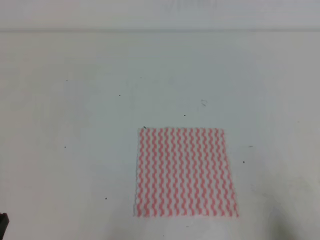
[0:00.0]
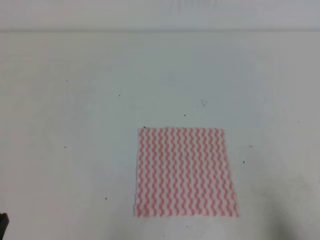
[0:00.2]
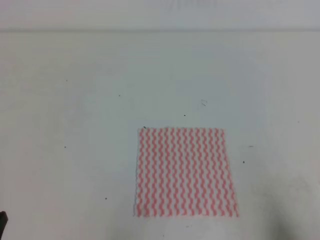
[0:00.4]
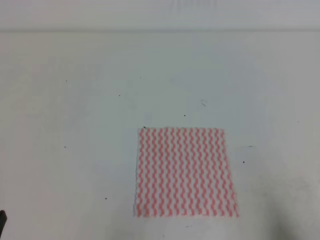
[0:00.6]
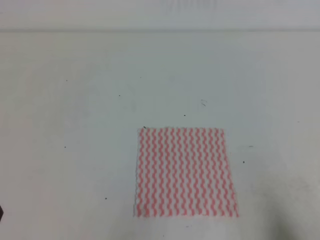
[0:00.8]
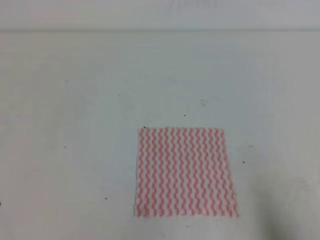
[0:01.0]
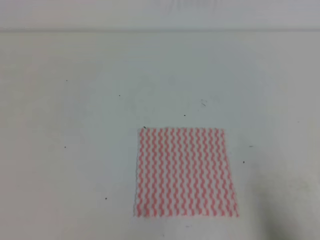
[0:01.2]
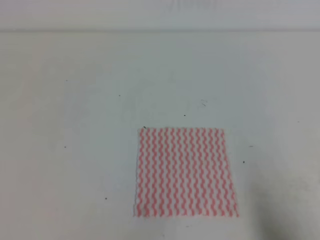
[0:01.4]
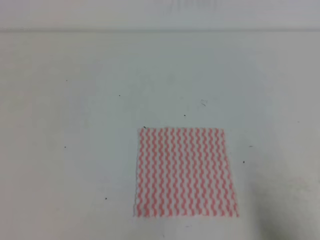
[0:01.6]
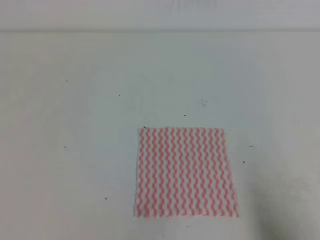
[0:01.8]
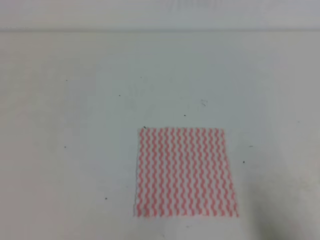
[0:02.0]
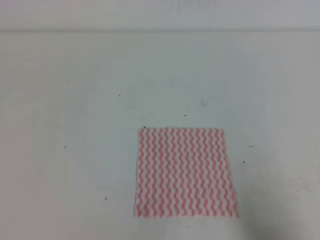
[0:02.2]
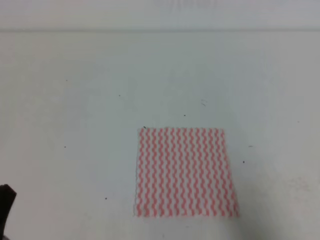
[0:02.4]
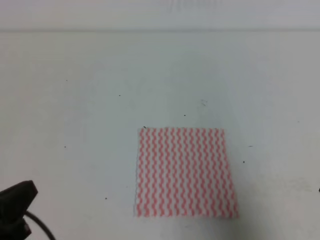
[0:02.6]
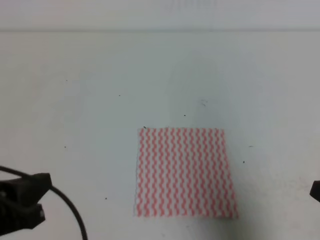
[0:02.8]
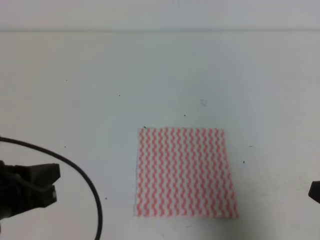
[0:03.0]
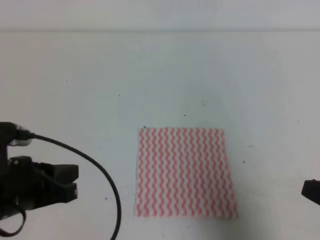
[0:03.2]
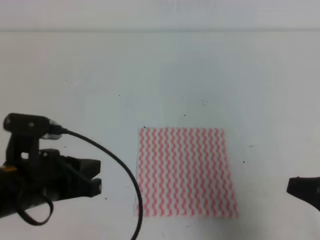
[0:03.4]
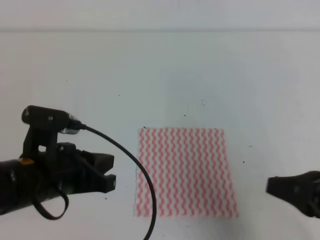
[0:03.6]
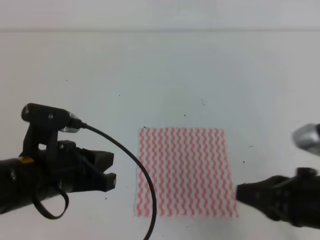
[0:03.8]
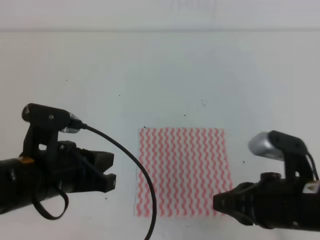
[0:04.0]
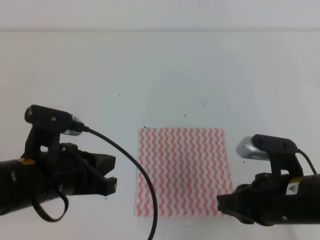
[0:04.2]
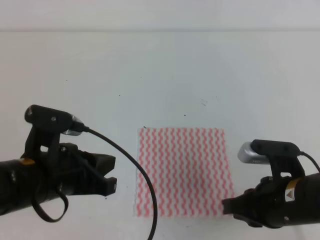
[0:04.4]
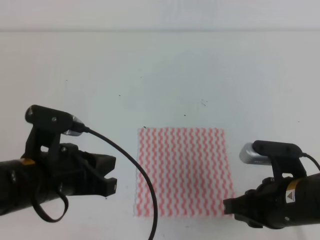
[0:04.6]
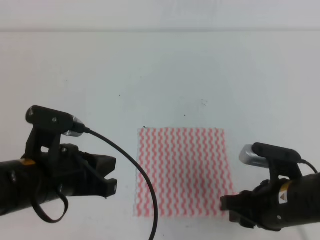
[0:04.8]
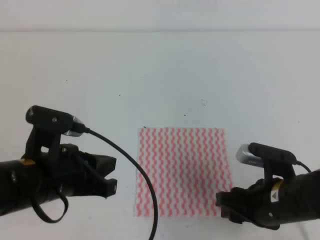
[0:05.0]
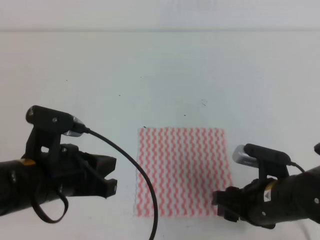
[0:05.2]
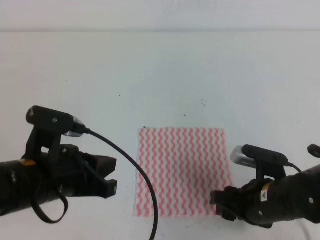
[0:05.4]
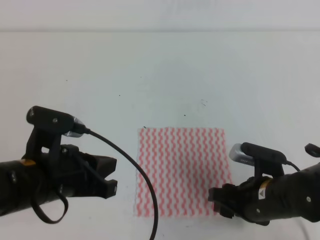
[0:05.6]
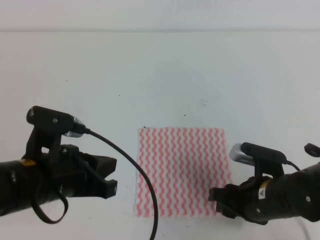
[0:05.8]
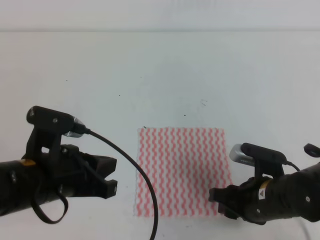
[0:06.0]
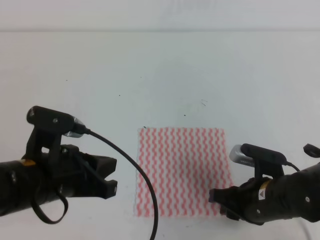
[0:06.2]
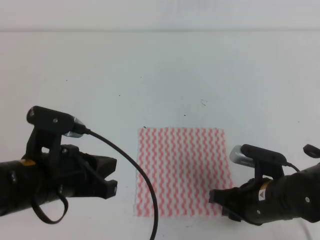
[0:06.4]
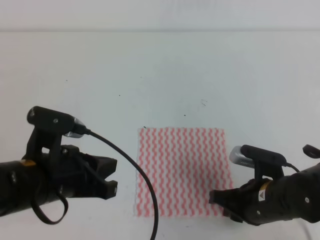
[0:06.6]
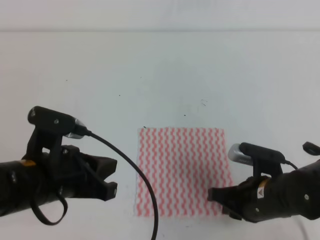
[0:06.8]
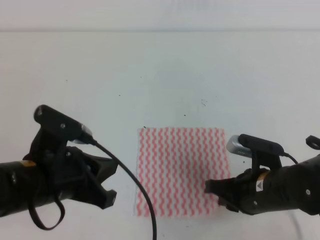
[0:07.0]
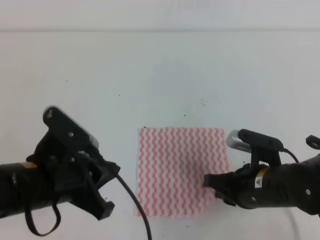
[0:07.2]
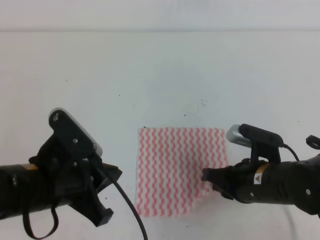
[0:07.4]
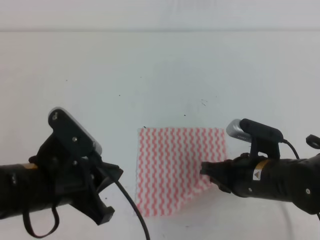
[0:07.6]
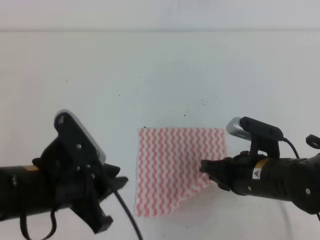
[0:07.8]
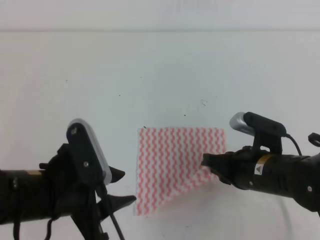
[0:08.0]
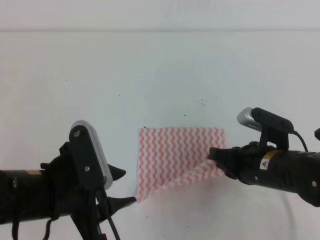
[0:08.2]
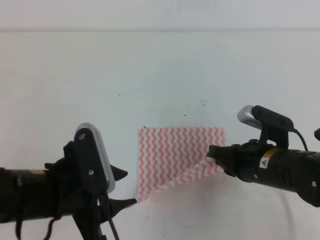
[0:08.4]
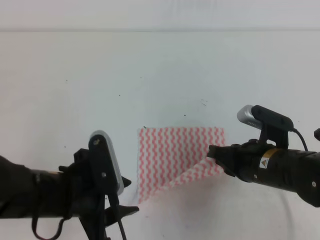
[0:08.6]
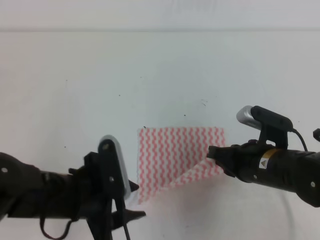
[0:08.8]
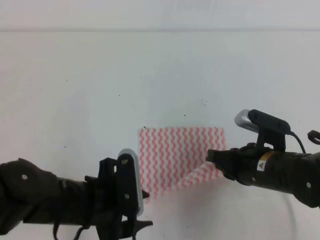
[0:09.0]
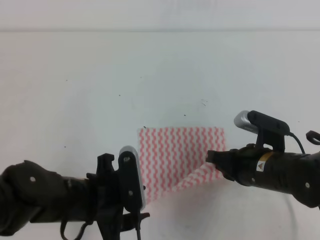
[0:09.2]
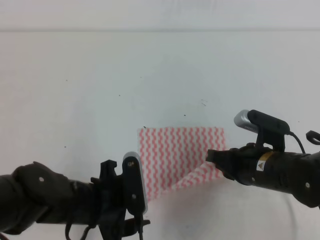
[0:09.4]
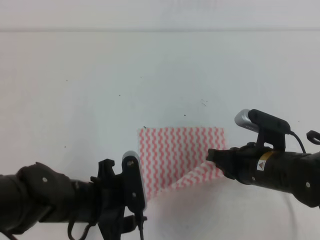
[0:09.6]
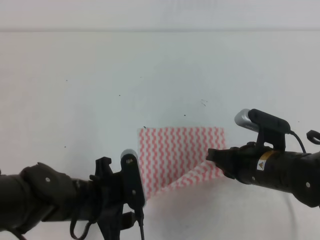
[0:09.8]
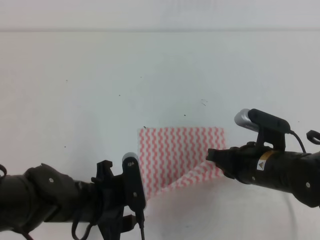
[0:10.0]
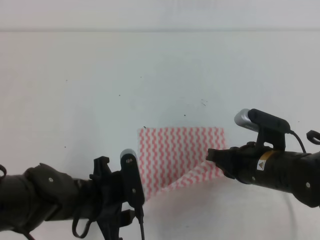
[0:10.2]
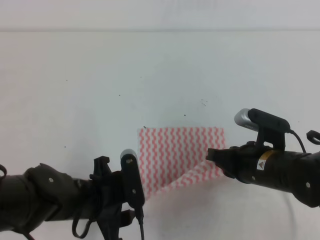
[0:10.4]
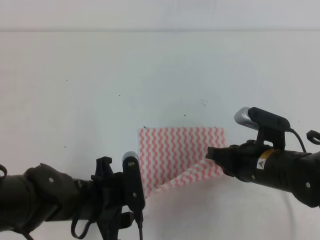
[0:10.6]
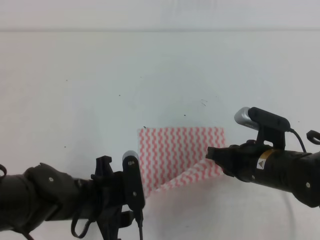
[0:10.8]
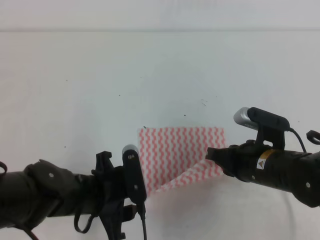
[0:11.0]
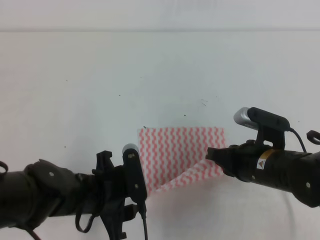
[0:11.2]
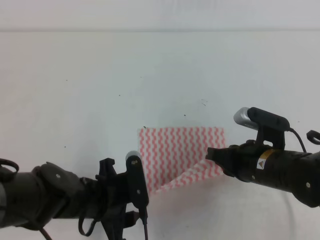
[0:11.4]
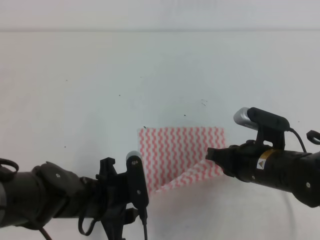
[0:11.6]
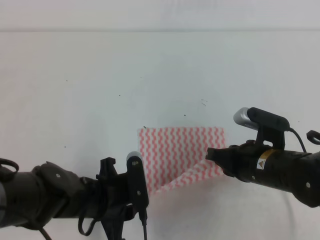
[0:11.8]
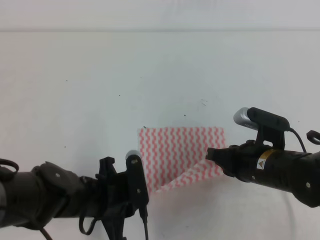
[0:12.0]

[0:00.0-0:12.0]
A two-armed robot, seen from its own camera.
0:01.6 to 0:03.0: The left gripper moves forward and upward, about 10 cm, while the right gripper travels upward and forward by about 10 cm.
0:03.0 to 0:04.4: The right gripper travels to the left, forward and downward by some 15 cm, while the left gripper heads to the right and forward, covering approximately 10 cm.
0:04.4 to 0:06.0: The right gripper heads downward, covering approximately 5 cm, and opens.
0:06.0 to 0:07.6: The right gripper closes up.
0:07.6 to 0:09.0: The left gripper moves approximately 5 cm, and opens up.
0:09.0 to 0:10.4: The grippers move only a little.
0:10.4 to 0:12.0: The left gripper closes its fingers.

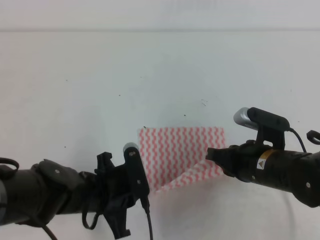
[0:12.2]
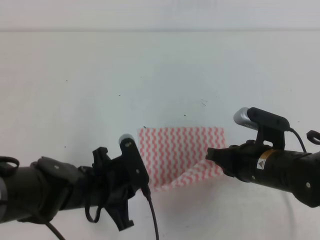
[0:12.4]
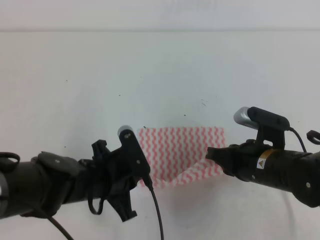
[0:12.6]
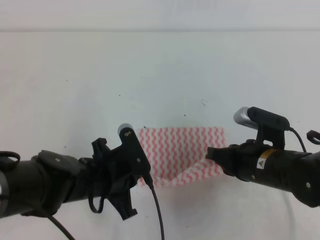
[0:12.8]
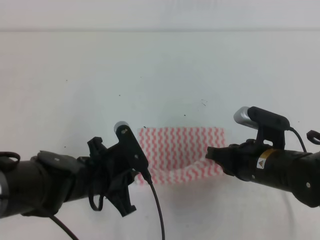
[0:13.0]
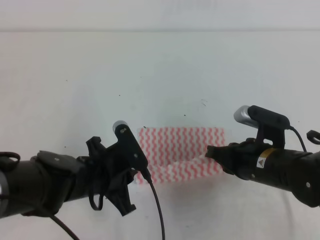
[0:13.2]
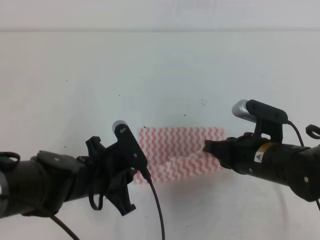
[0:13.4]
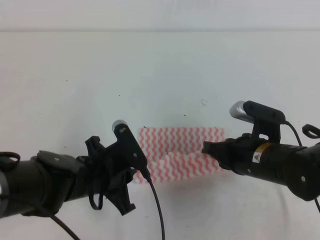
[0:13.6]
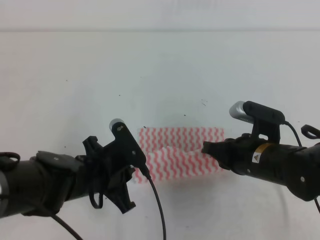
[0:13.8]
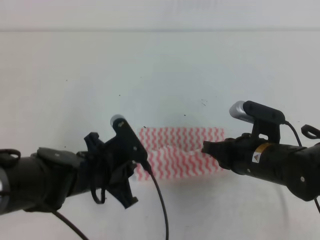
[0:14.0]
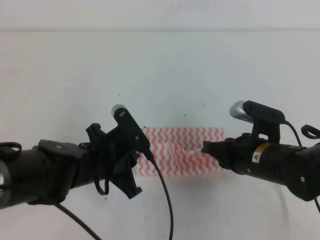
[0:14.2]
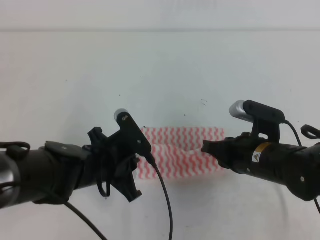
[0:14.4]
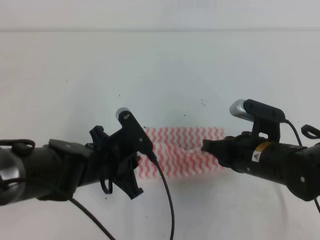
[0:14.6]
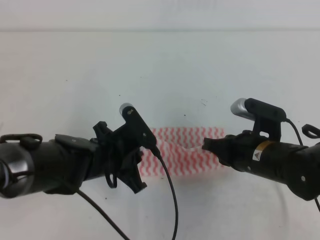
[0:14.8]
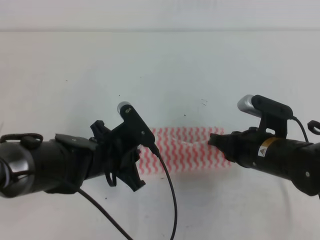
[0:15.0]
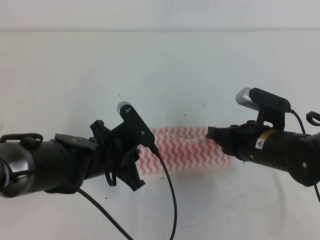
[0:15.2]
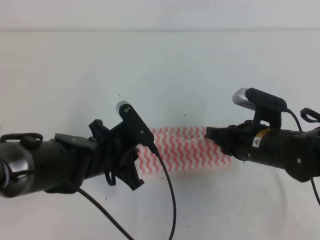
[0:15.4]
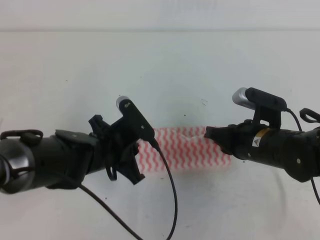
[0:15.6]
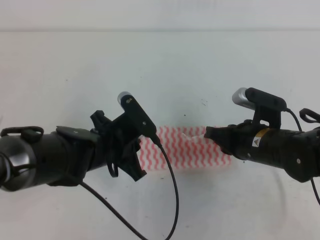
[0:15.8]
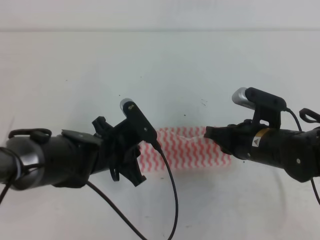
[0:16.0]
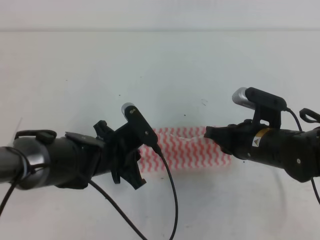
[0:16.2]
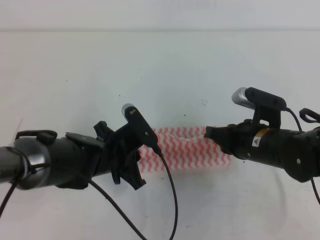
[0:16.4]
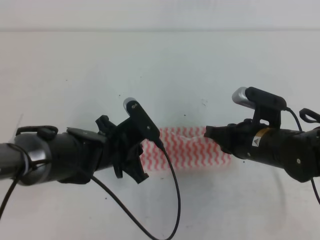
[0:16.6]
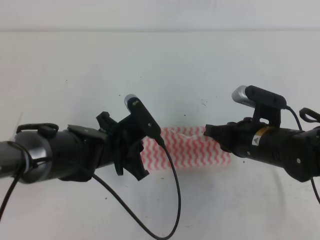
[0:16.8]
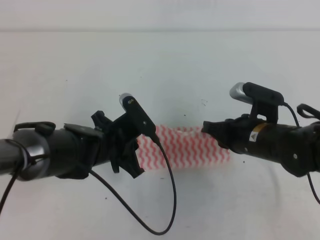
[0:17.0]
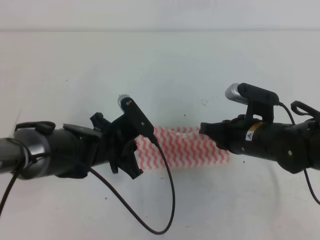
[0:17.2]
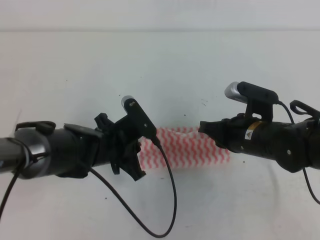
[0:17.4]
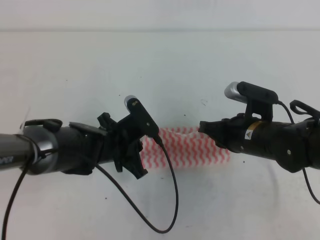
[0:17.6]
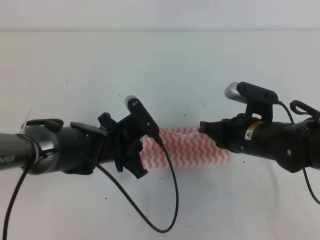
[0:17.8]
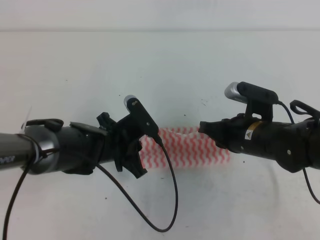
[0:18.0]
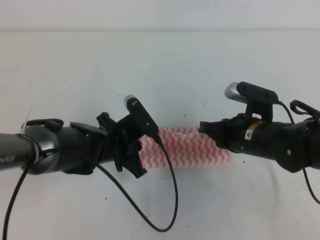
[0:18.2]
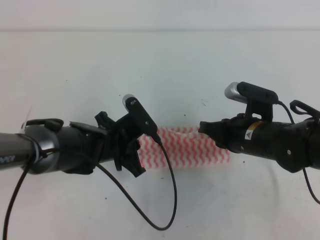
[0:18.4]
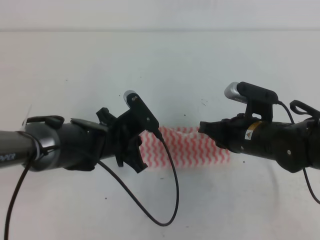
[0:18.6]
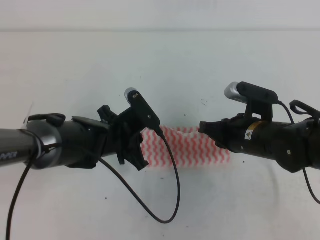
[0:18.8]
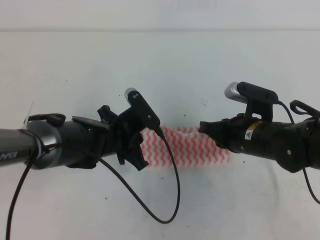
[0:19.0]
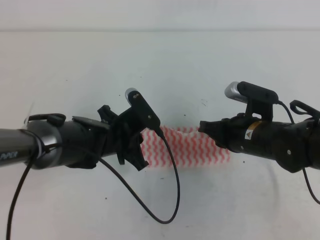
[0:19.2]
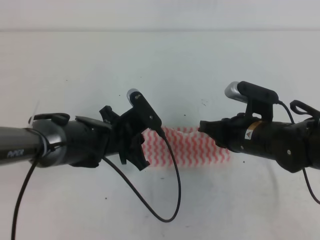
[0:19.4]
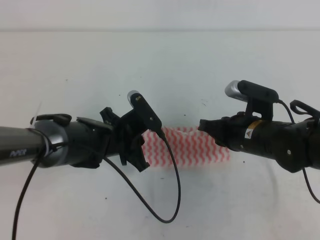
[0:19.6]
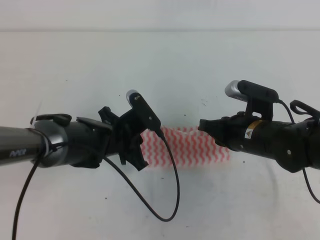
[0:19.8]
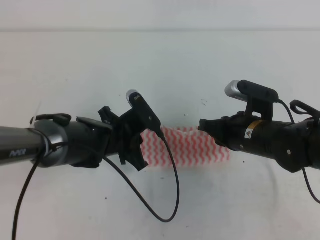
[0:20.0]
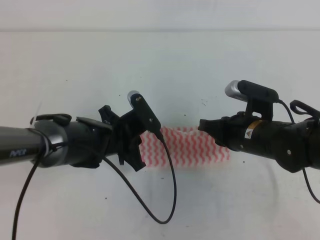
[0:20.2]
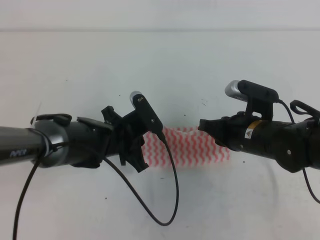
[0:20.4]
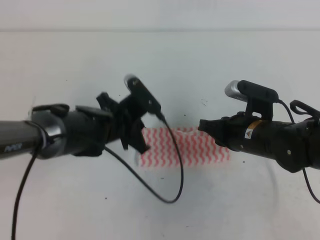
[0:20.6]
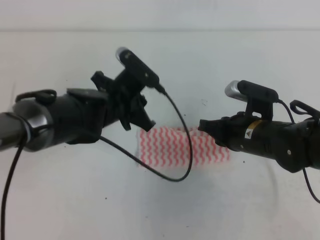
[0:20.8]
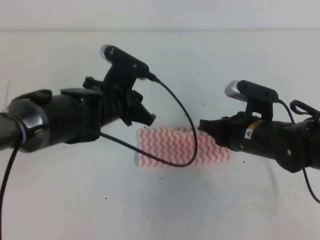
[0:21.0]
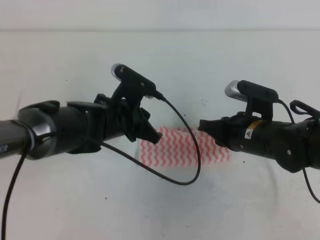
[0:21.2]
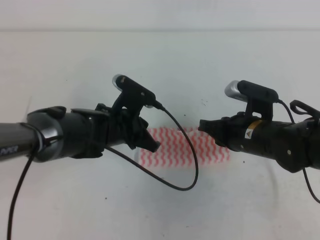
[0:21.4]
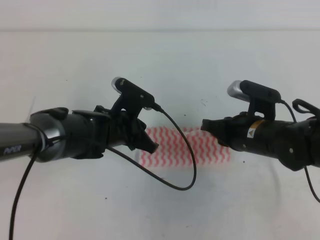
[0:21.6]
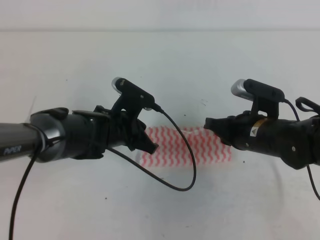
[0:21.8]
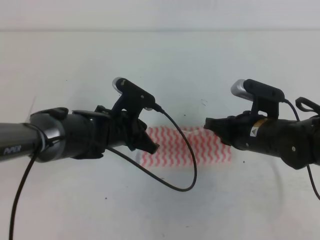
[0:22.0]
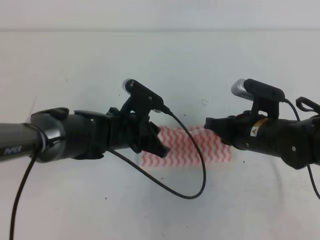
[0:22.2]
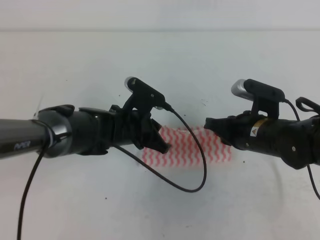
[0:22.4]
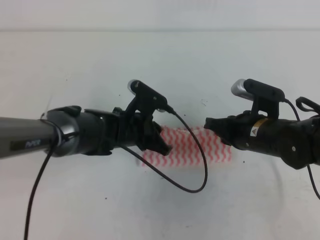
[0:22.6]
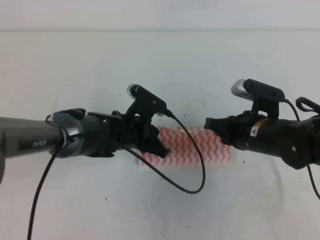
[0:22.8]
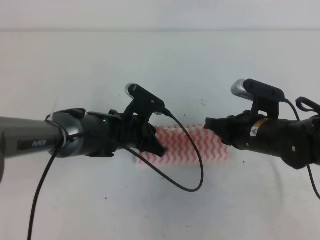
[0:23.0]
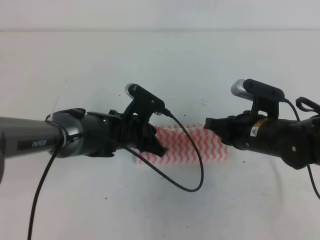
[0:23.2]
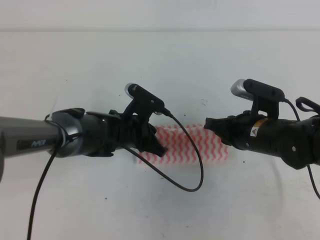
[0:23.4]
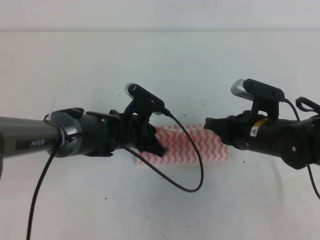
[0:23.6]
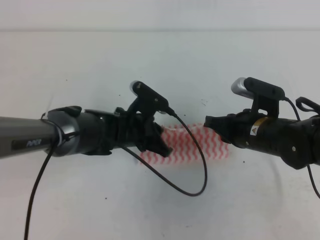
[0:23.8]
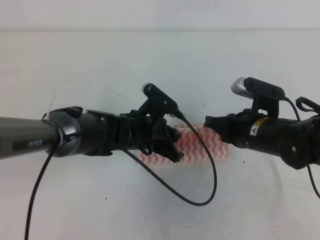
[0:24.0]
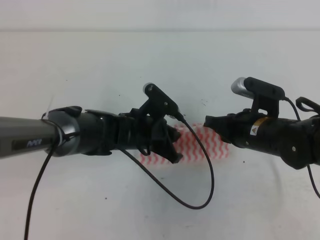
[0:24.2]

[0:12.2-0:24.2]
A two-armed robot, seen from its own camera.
0:12.2 to 0:13.8: The grippers move only a little.
0:15.2 to 0:19.8: The grippers make only small movements.
0:21.2 to 0:22.6: There are only small adjustments of the grippers.
0:22.6 to 0:24.2: The grippers move only a little.
